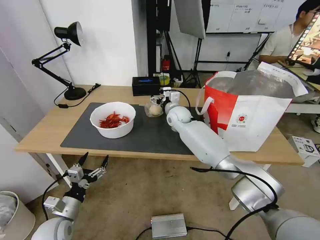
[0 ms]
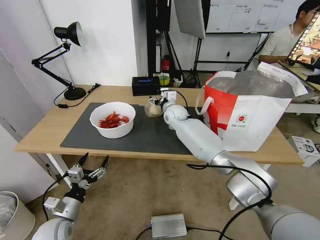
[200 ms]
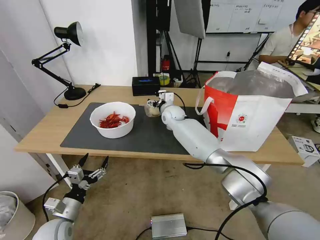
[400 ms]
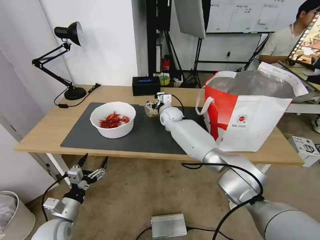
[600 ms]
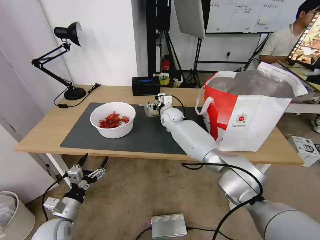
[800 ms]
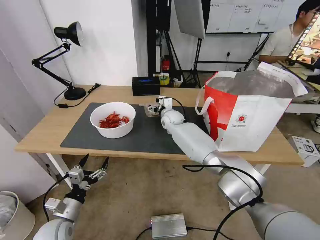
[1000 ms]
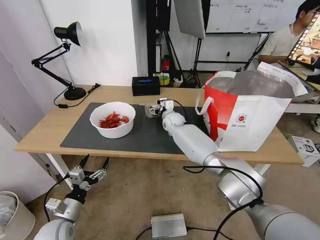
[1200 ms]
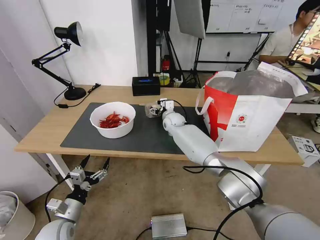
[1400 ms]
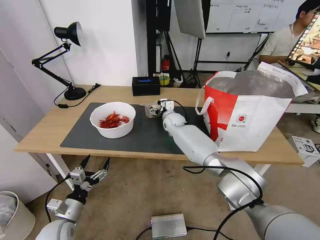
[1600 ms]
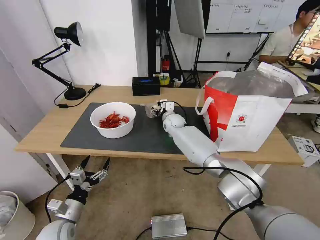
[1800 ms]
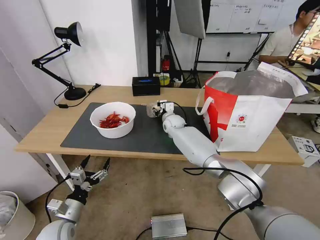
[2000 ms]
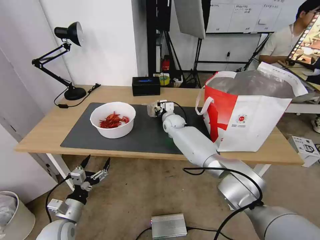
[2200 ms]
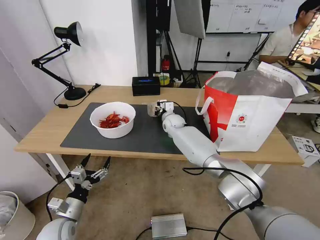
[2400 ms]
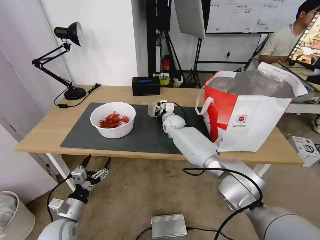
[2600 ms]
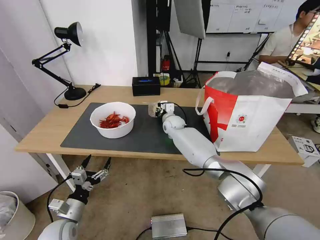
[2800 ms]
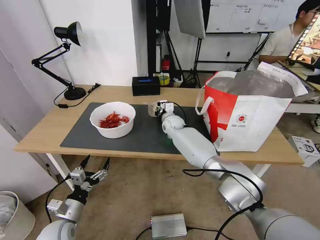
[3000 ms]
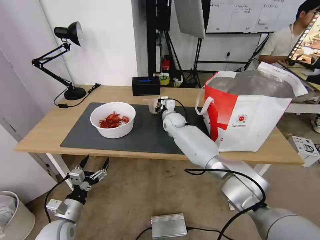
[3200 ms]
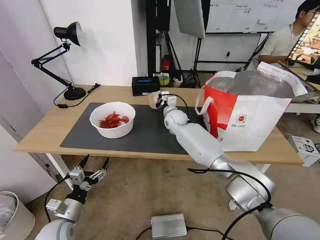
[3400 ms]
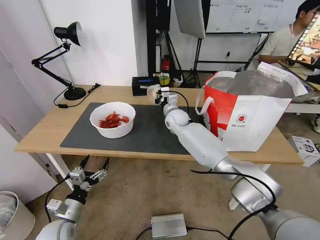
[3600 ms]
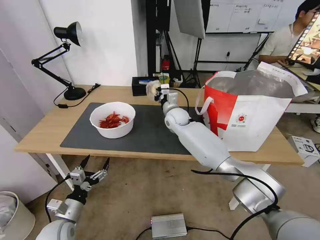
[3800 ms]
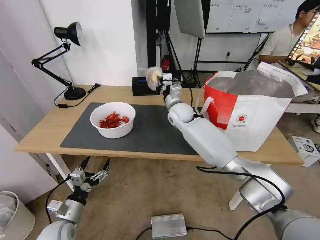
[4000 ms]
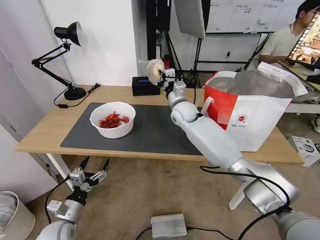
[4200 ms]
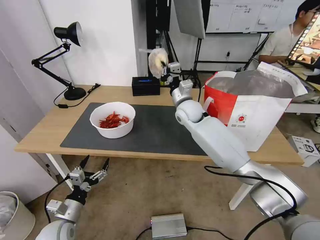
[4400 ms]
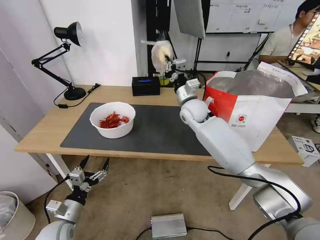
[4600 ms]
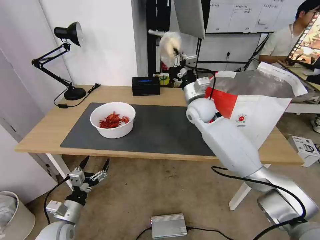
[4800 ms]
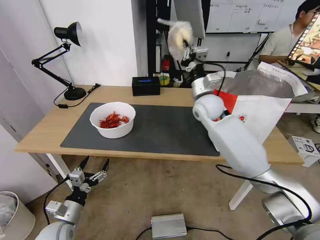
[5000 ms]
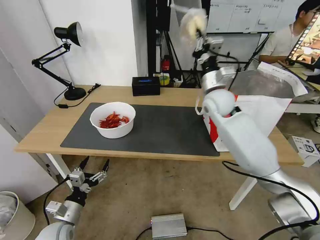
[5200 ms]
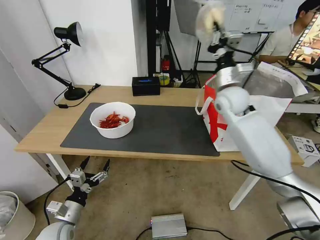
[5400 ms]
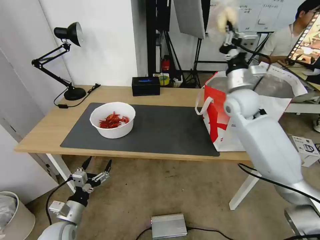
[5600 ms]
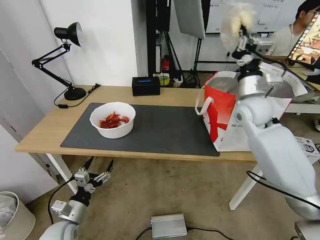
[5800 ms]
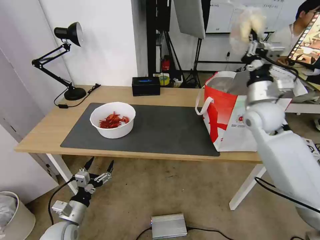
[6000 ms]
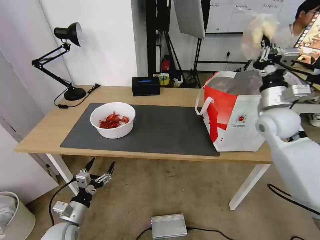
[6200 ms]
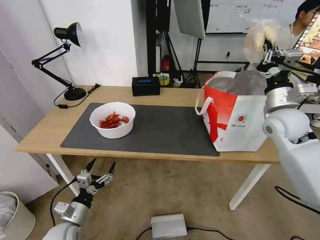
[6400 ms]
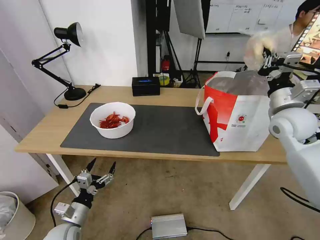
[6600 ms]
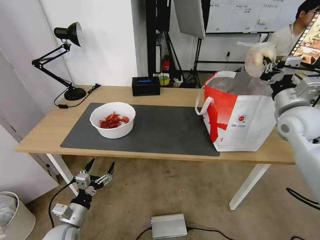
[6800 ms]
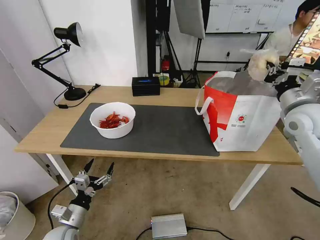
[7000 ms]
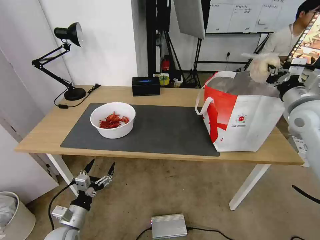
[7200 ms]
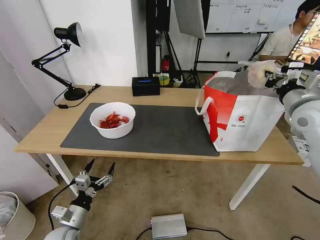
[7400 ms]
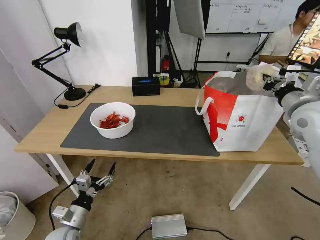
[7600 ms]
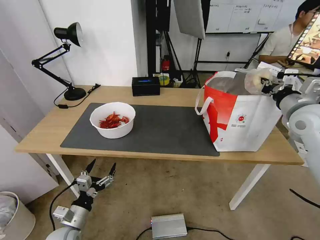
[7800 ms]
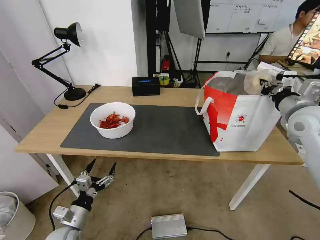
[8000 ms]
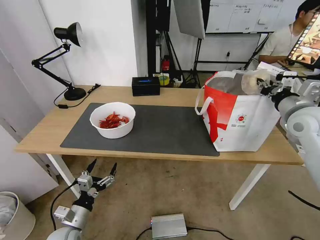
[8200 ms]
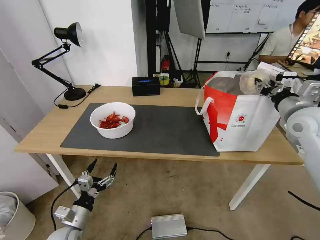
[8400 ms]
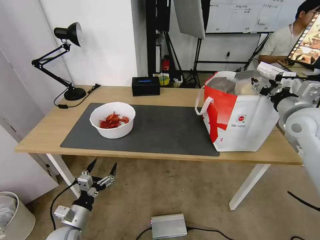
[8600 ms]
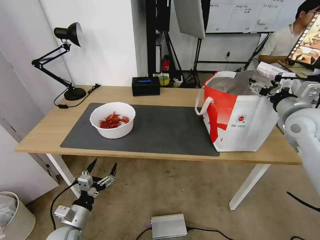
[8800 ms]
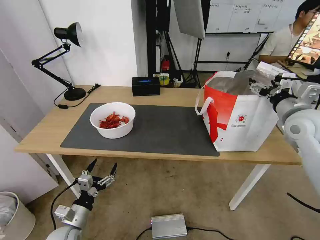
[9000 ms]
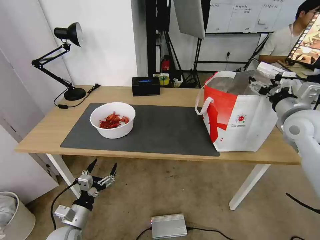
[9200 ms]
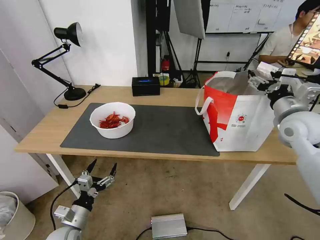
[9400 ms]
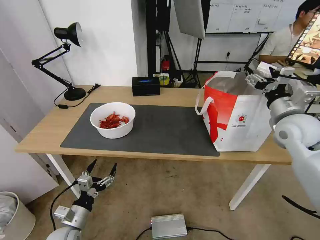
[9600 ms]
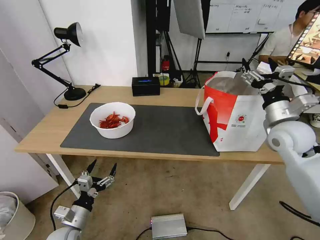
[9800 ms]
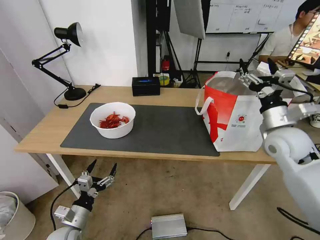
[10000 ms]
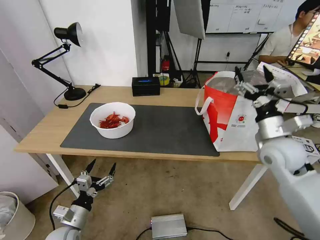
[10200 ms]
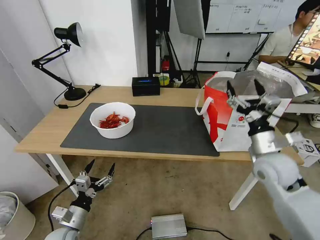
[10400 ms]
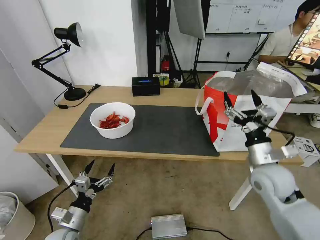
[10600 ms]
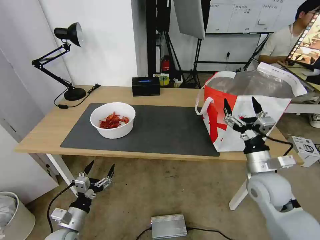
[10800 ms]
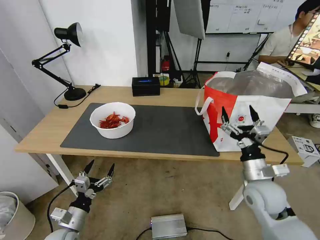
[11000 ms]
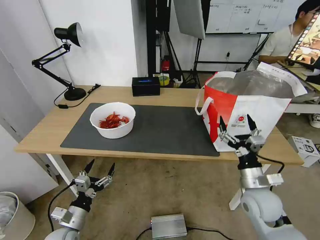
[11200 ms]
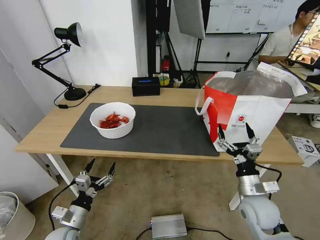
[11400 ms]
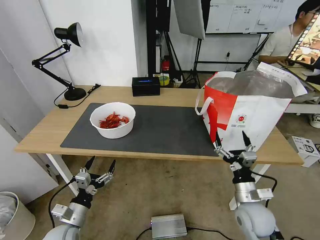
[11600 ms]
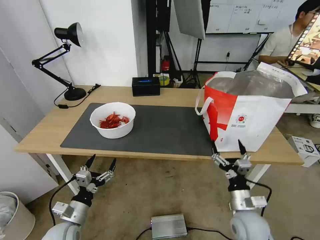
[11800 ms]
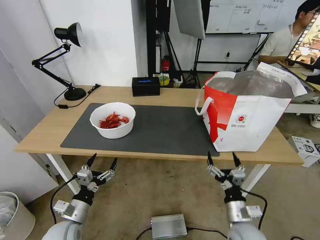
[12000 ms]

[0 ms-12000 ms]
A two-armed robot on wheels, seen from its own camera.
Task of the whole recording: Pick up the trash from the table and place it into the takeout bag.
0 ms to 1600 ms: The right gripper goes approximately 5 cm downward.
1600 ms to 3000 ms: The right gripper closes up.
3000 ms to 4400 ms: The right gripper travels upward and backward by about 15 cm.
4400 ms to 6000 ms: The right gripper goes approximately 25 cm to the right and backward.
6000 ms to 7600 ms: The right gripper travels to the right and backward by roughly 10 cm.
7600 ms to 9000 ms: The right gripper opens up.
9000 ms to 10400 ms: The right gripper travels downward, to the left and backward by approximately 15 cm.
10400 ms to 12000 ms: The right gripper goes about 25 cm downward and backward.

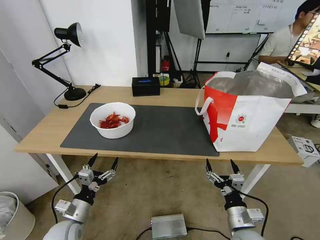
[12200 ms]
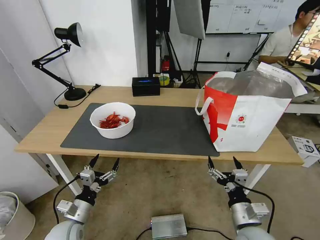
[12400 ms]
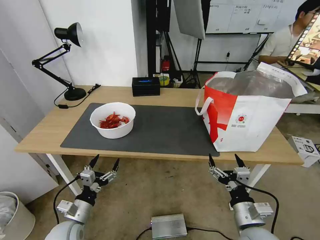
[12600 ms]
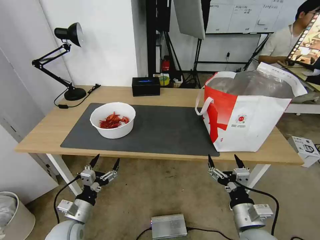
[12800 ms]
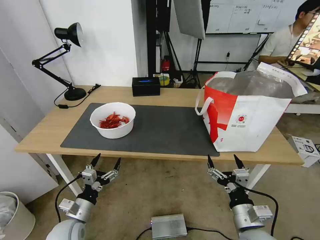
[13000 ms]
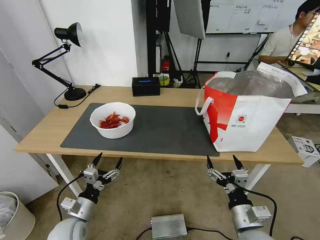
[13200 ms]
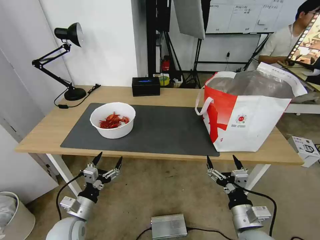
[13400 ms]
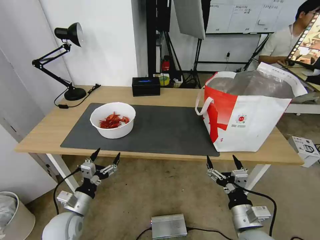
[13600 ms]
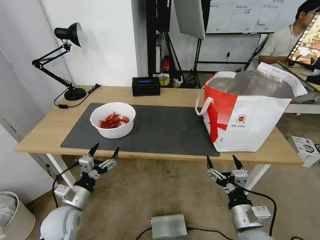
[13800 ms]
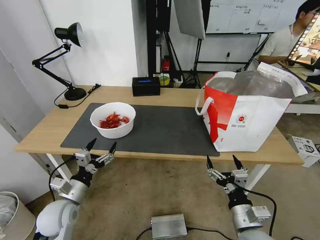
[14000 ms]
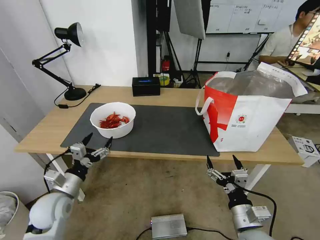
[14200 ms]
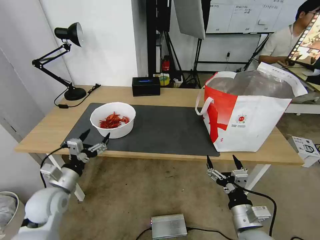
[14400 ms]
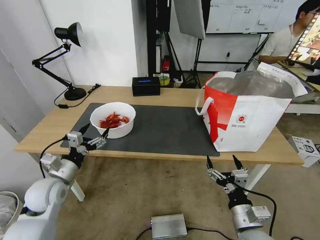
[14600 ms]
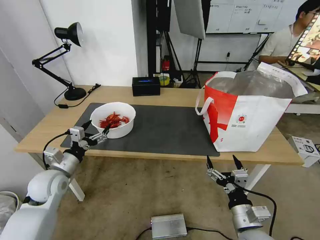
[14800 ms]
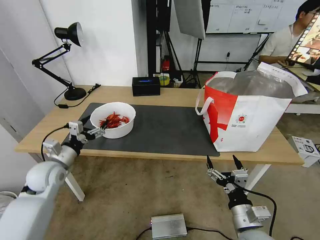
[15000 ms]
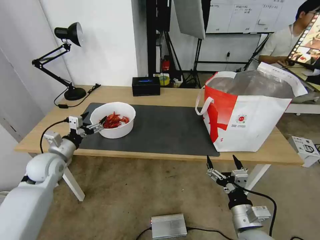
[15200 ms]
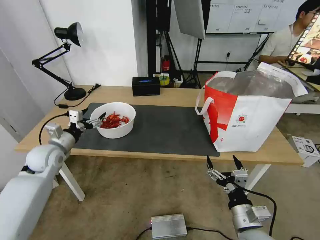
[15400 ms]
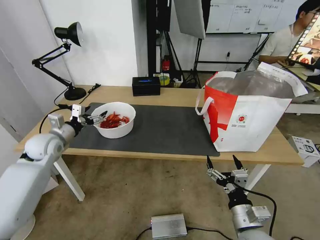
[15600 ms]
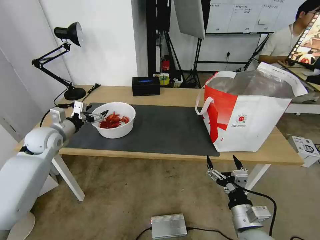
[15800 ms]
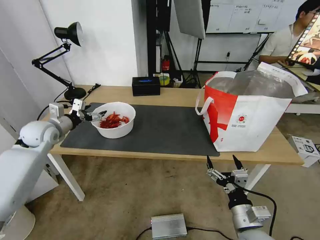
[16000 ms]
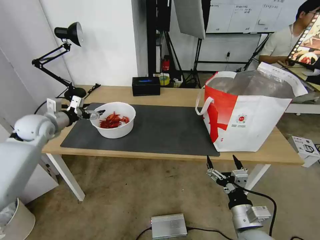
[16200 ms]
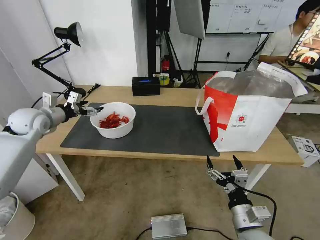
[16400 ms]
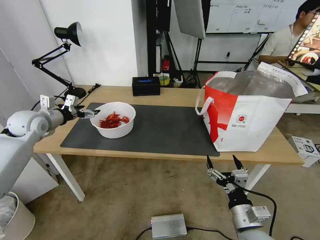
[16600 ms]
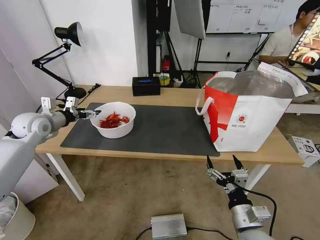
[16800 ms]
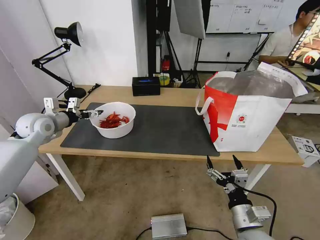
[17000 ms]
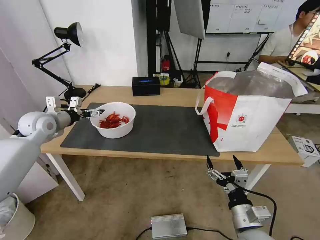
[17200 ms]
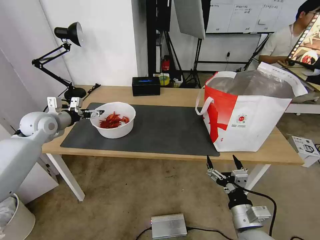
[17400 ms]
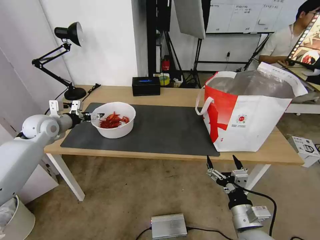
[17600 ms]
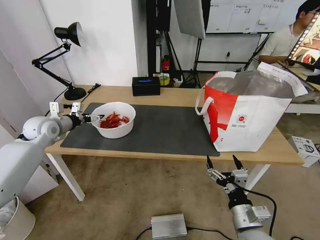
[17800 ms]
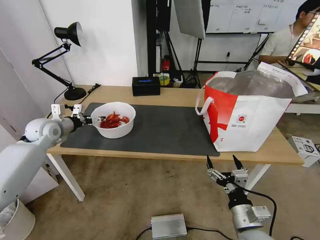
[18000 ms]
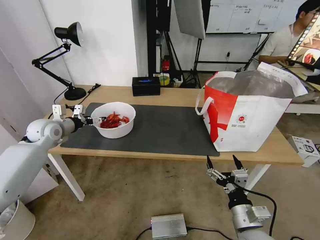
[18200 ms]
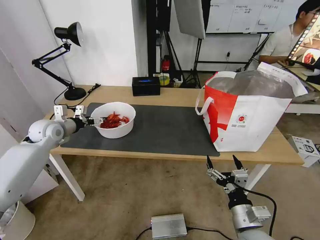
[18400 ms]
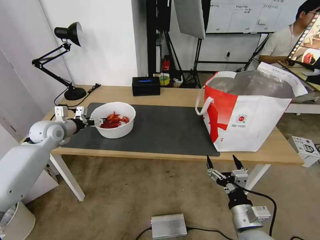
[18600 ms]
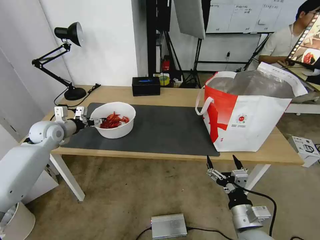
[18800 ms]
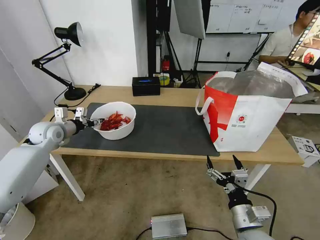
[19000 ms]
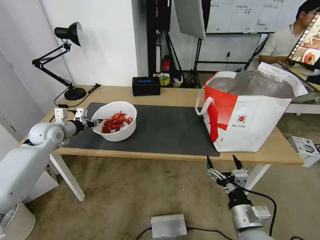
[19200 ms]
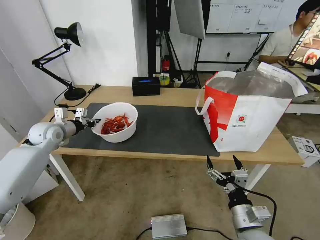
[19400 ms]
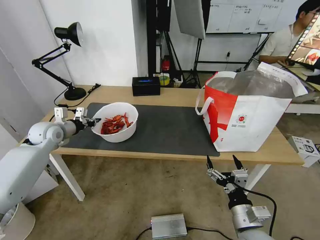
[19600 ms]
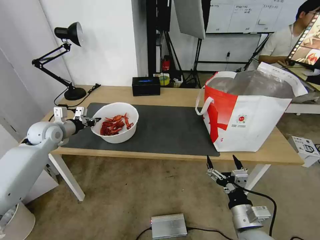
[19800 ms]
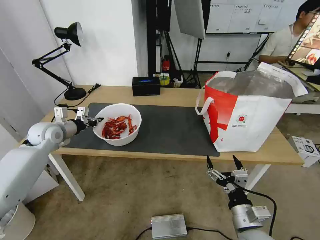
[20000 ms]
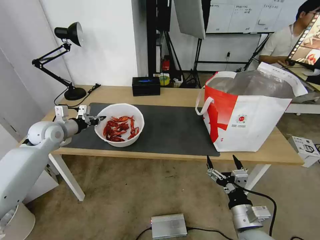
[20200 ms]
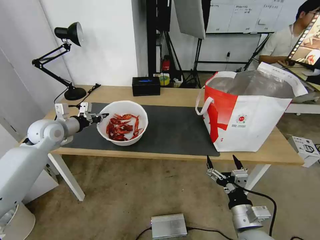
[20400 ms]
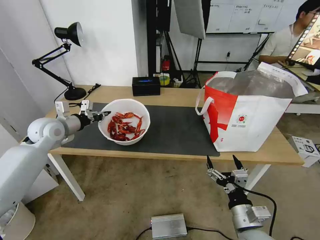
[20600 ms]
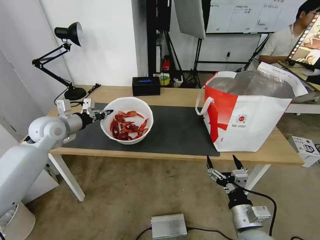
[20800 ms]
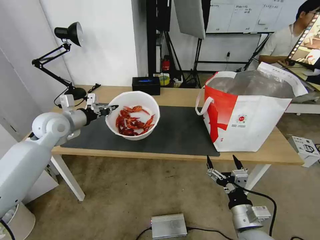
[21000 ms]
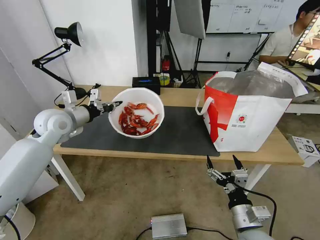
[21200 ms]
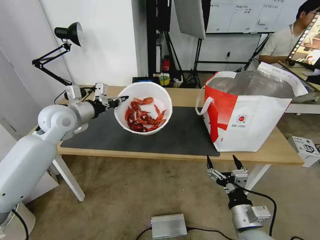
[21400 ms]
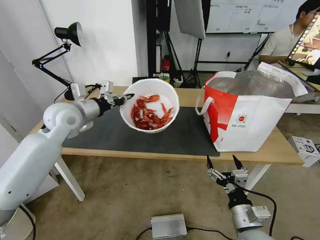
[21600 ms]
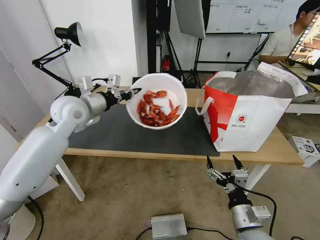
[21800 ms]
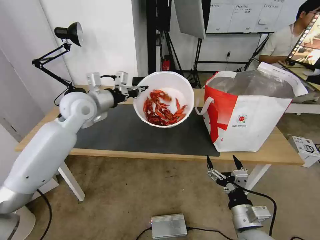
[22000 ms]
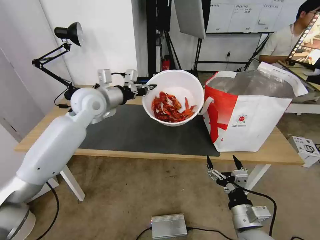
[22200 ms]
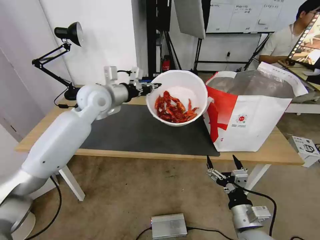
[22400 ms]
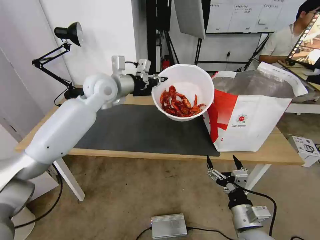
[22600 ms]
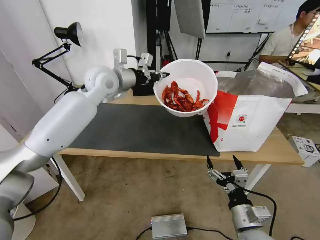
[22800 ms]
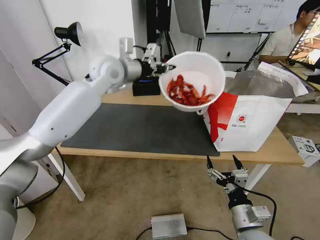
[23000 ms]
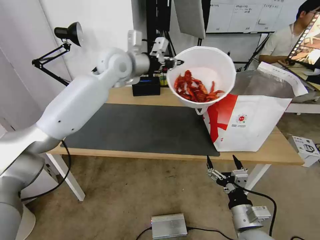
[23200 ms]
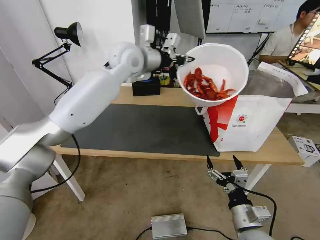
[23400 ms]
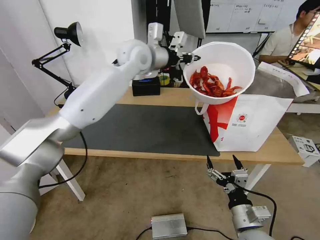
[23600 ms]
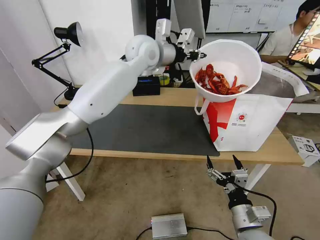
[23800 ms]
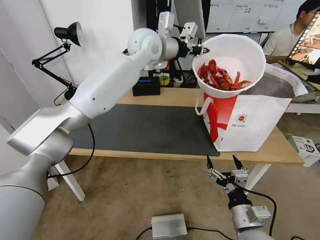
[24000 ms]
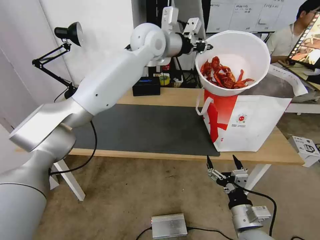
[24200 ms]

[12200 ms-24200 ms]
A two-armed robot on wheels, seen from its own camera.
Task of the whole recording: Pick up the trash from the table and place it into the takeout bag.
12200 ms to 13800 ms: The grippers move only a little.
13800 ms to 15200 ms: The left gripper moves forward, upward and to the left, approximately 20 cm.
15200 ms to 16600 ms: The left gripper goes approximately 15 cm upward, forward and to the left.
16600 ms to 18200 ms: The left gripper ends up approximately 5 cm from where it was.
18200 ms to 19800 ms: The left gripper closes up.
19800 ms to 21200 ms: The left gripper shifts about 10 cm to the right and upward.
21200 ms to 22600 ms: The left gripper shifts roughly 15 cm to the right, upward and forward.
22600 ms to 24200 ms: The left gripper goes about 20 cm to the right, upward and forward.
